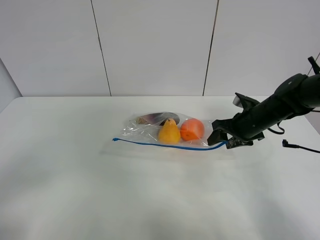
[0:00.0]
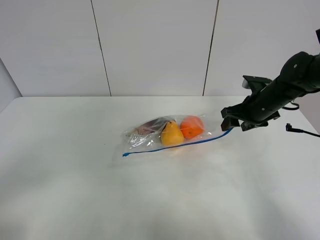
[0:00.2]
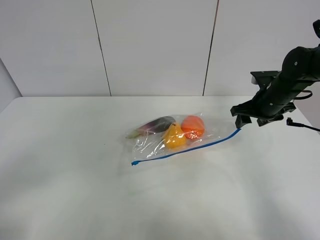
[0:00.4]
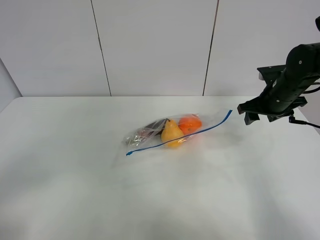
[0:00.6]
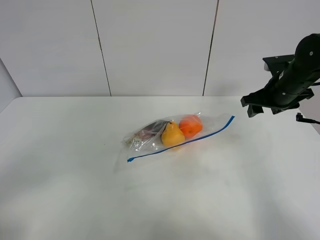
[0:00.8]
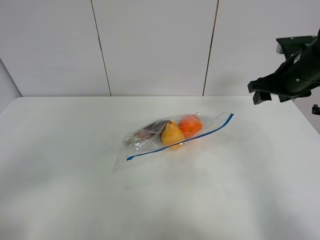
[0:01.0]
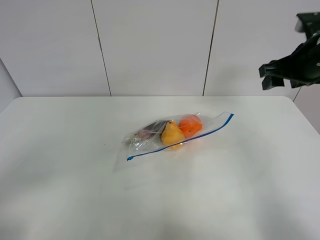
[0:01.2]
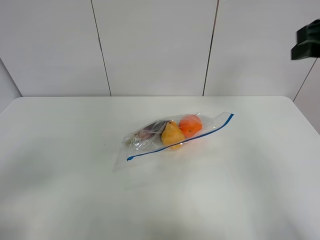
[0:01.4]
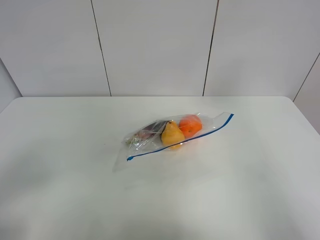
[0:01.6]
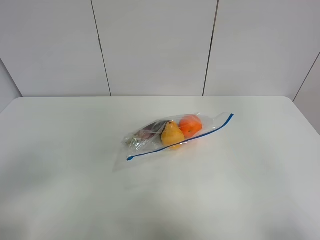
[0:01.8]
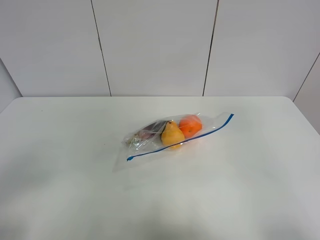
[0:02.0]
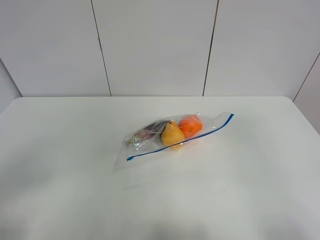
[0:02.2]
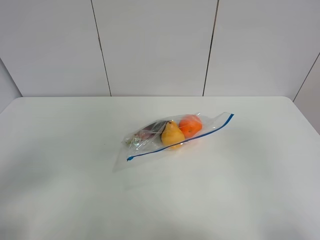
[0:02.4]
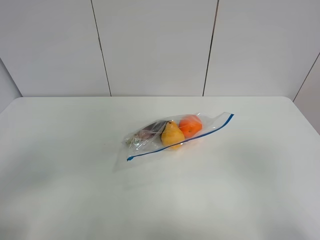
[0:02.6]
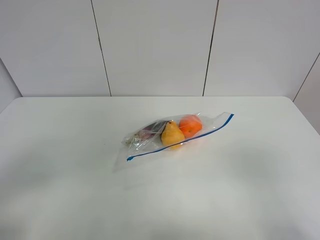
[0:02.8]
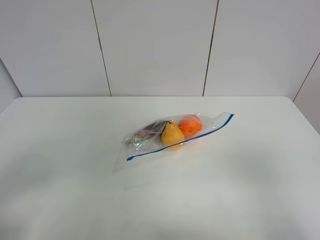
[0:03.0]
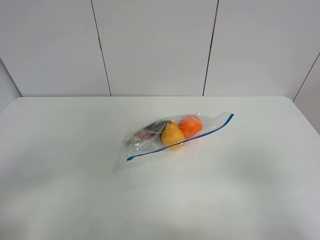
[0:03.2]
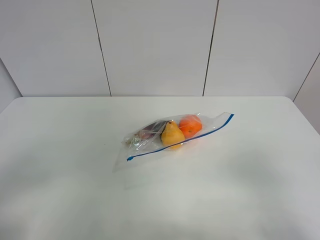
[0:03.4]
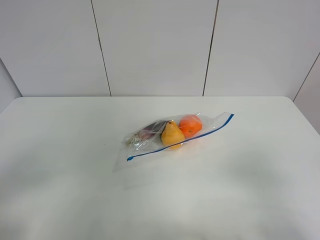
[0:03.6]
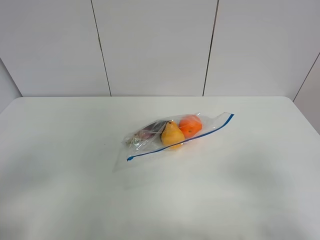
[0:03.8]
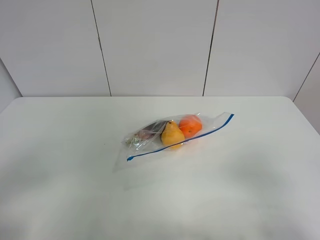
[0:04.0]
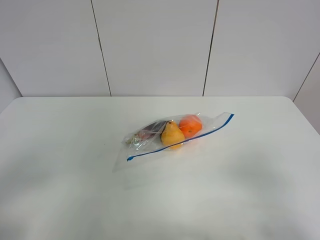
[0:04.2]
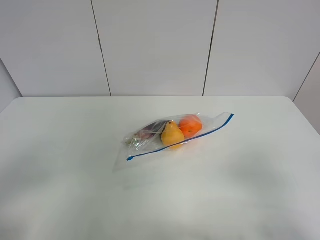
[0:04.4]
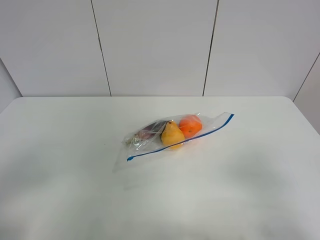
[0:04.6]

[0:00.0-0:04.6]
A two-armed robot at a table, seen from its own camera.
0:00.0 to 0:01.6: The right gripper heads upward and backward, covering about 35 cm.
0:01.6 to 0:03.0: The right gripper travels backward and downward by approximately 25 cm.
